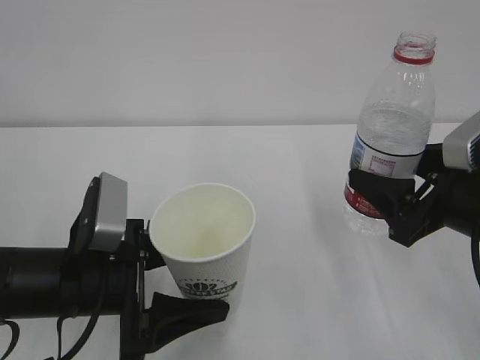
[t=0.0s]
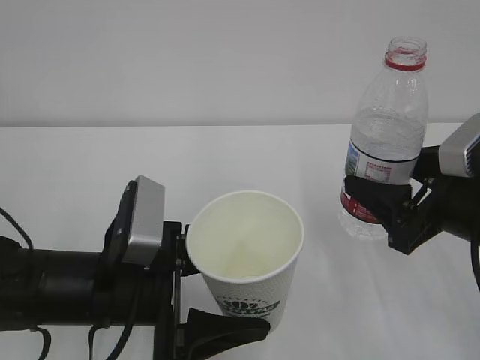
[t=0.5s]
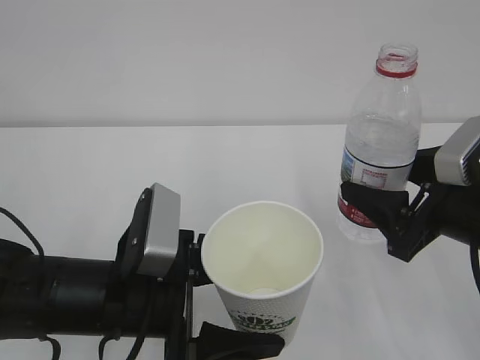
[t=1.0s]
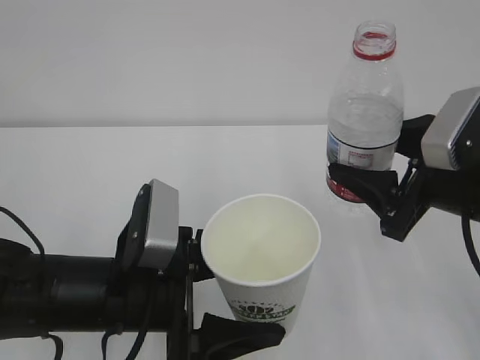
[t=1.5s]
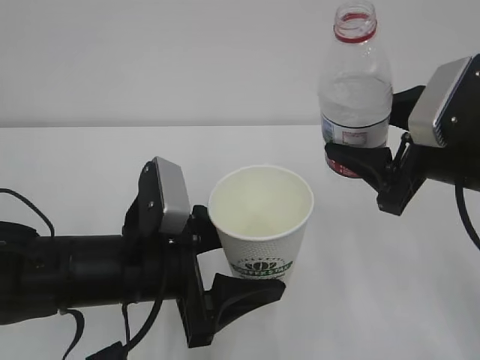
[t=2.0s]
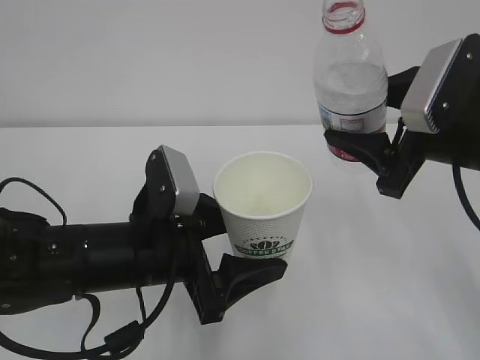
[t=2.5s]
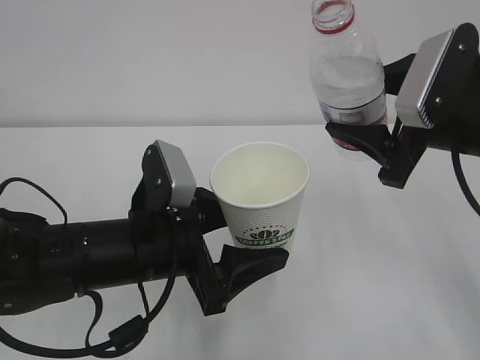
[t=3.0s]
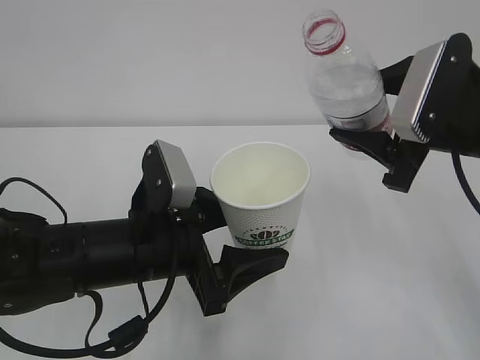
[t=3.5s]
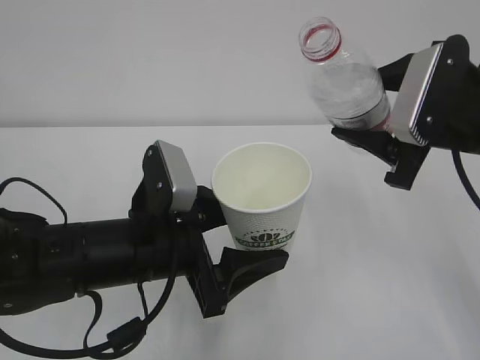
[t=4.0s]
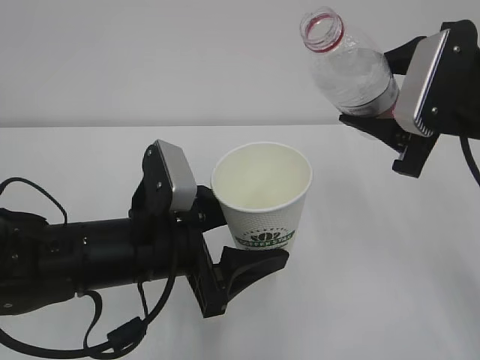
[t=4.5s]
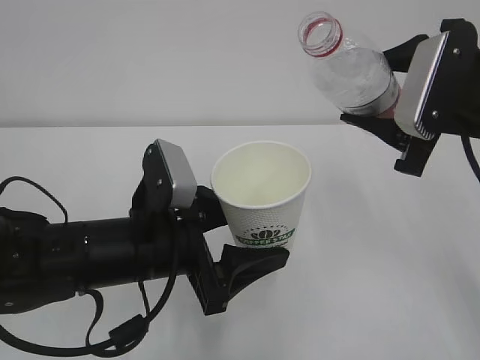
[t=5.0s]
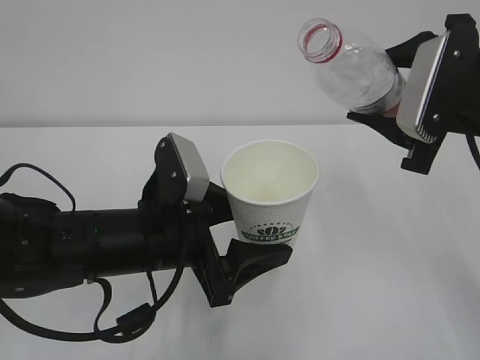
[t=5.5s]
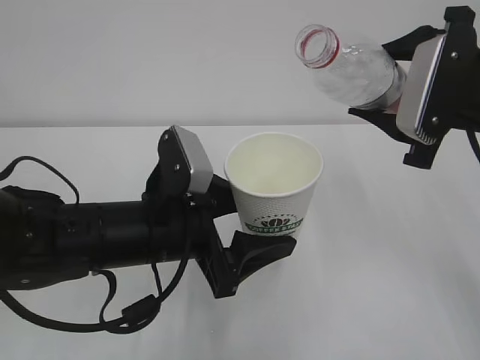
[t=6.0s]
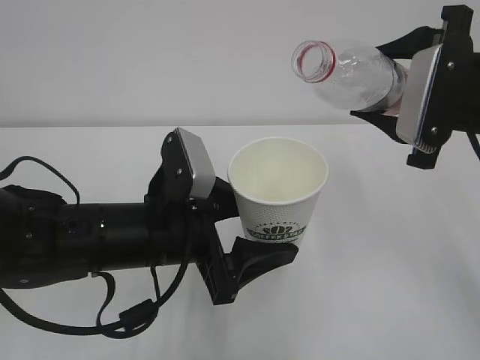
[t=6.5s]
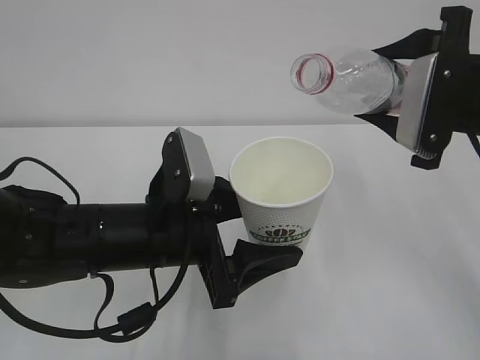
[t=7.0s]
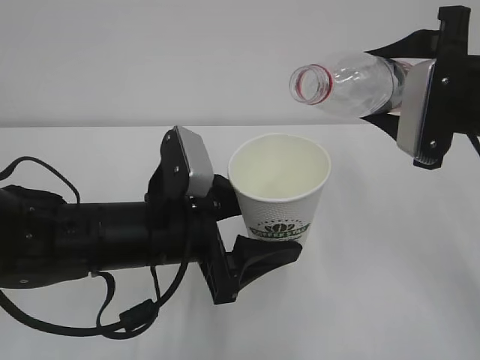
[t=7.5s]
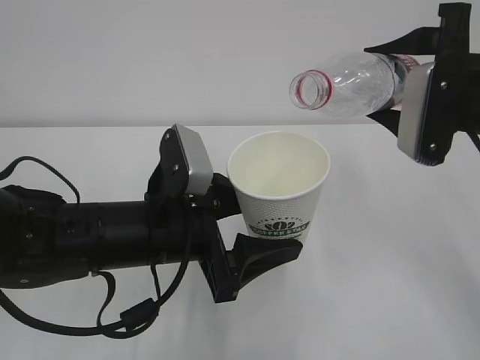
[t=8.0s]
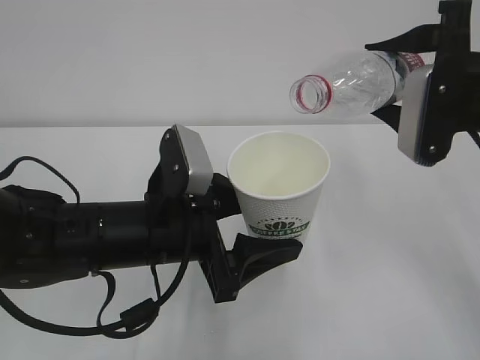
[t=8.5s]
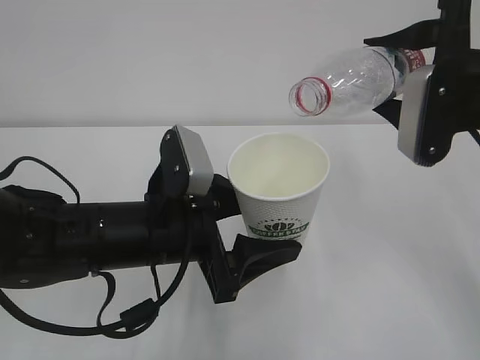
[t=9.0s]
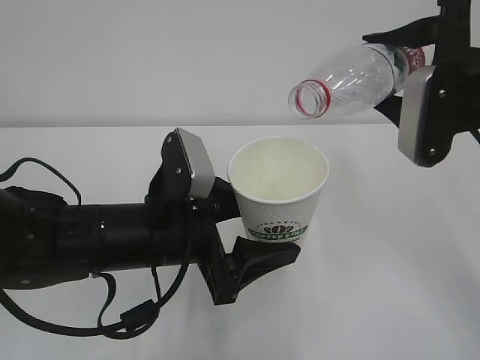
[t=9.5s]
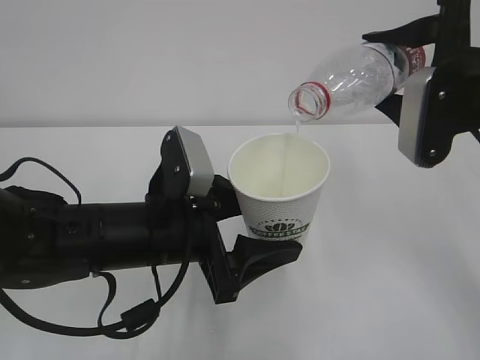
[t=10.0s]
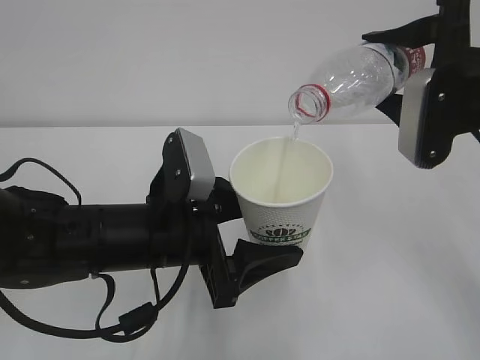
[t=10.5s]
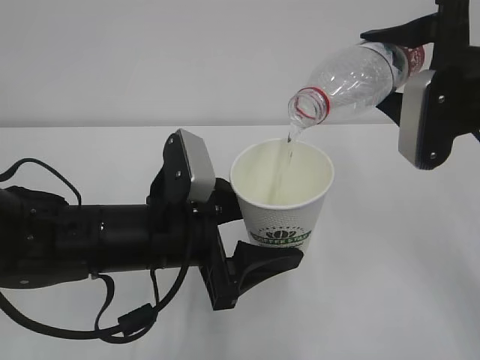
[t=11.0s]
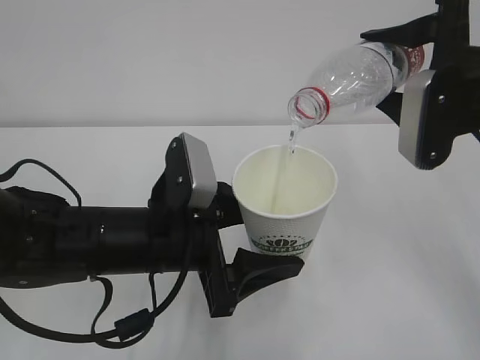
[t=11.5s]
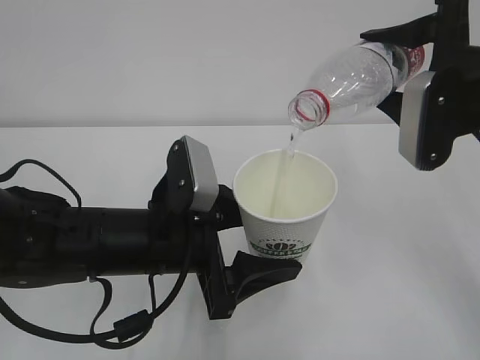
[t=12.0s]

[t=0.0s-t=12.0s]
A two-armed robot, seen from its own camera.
t=0.0s to t=2.0s: The left gripper moves to the right, approximately 5 cm.
t=6.0s to t=8.0s: The grippers stay close to where they were, moving slightly.
t=8.0s to t=10.0s: The grippers stay close to where they were, moving slightly.
t=10.0s to t=12.0s: Neither gripper changes place.

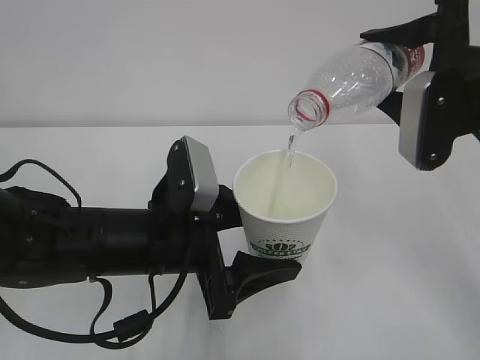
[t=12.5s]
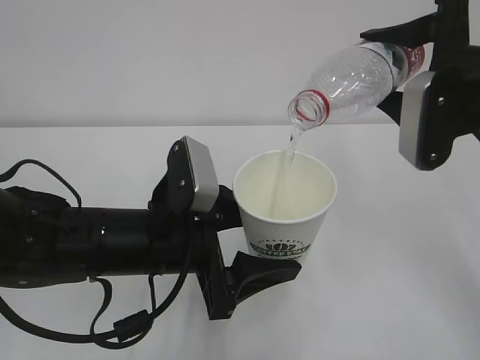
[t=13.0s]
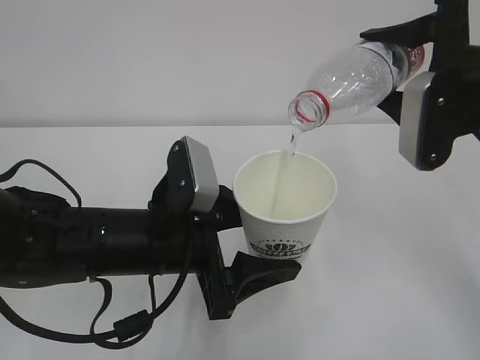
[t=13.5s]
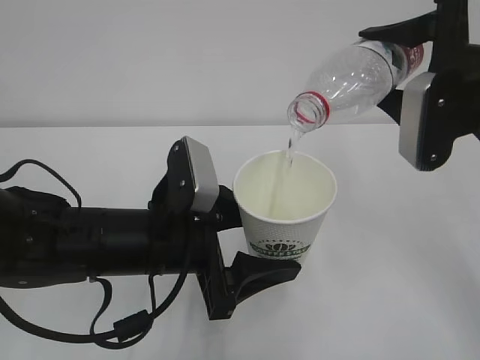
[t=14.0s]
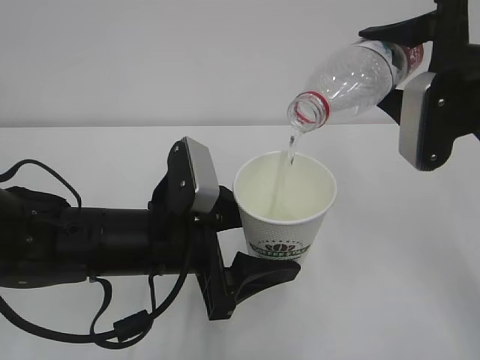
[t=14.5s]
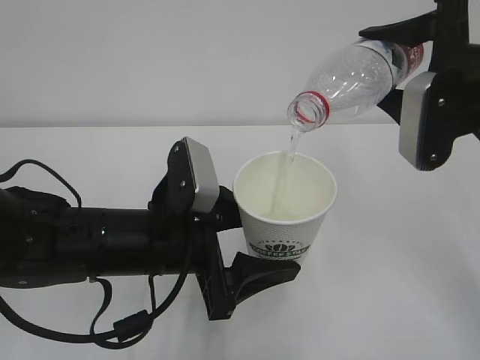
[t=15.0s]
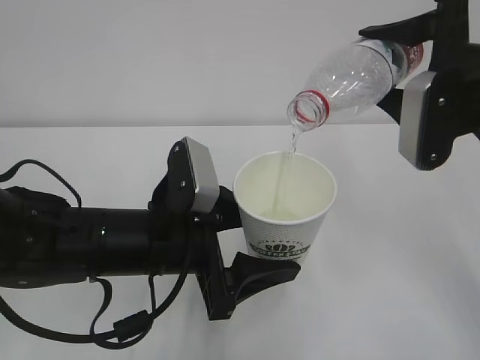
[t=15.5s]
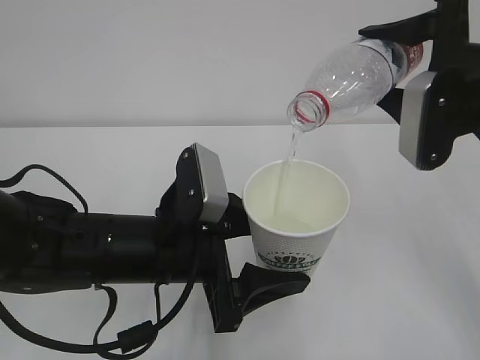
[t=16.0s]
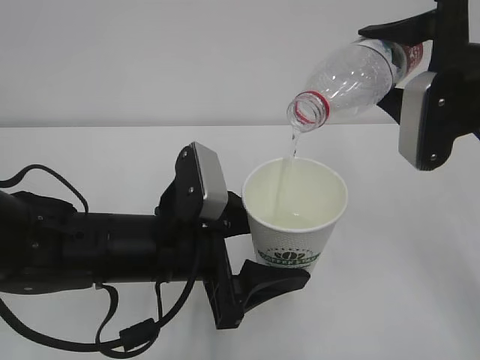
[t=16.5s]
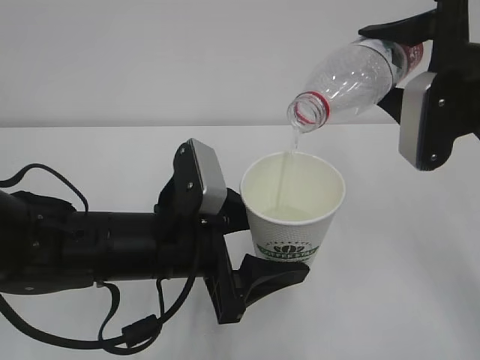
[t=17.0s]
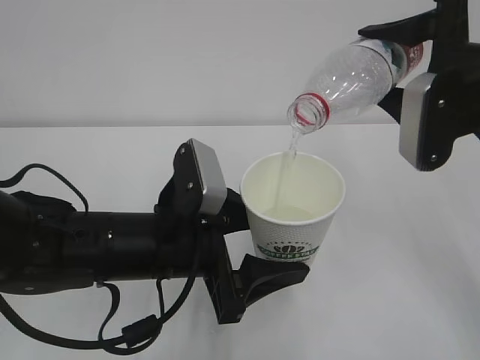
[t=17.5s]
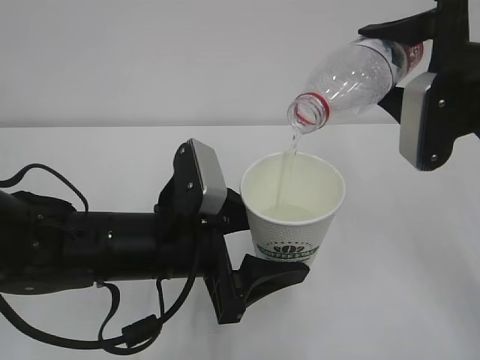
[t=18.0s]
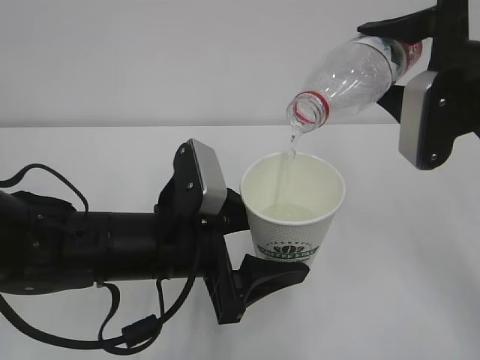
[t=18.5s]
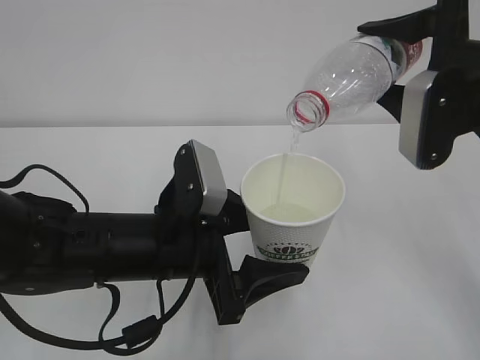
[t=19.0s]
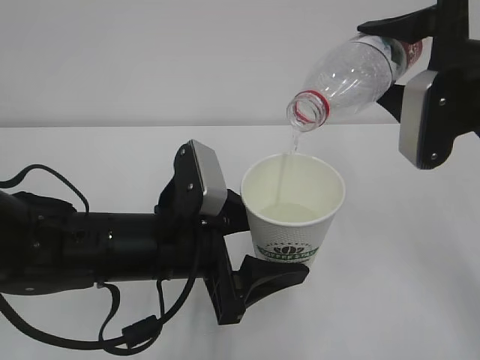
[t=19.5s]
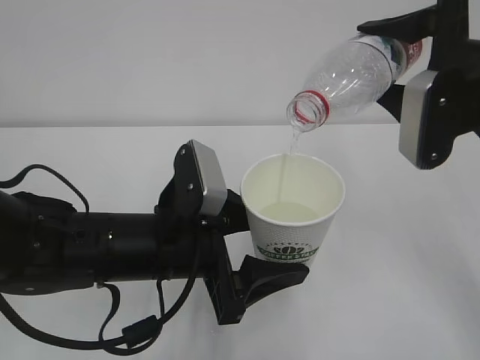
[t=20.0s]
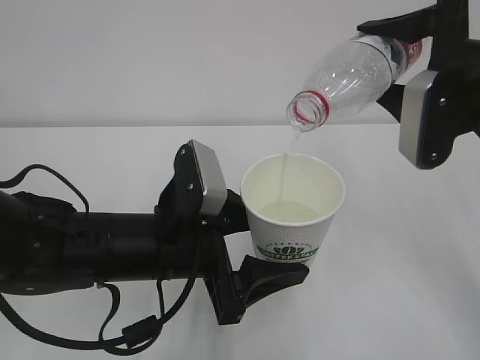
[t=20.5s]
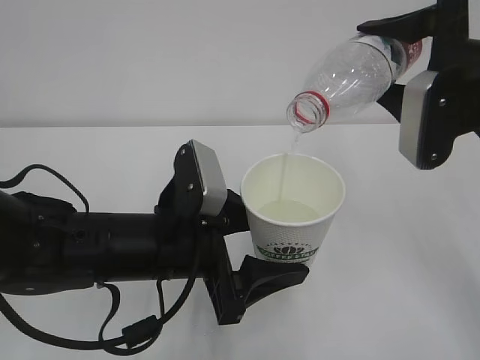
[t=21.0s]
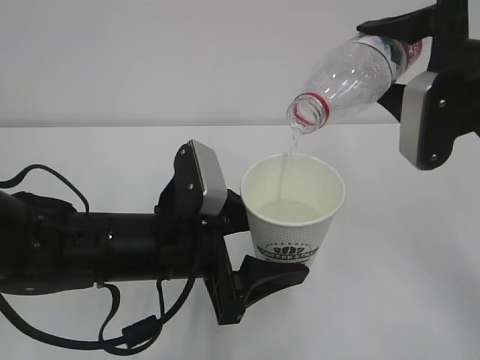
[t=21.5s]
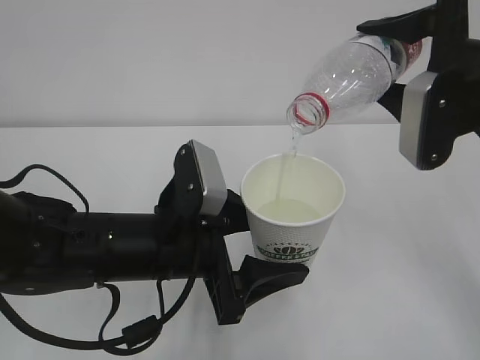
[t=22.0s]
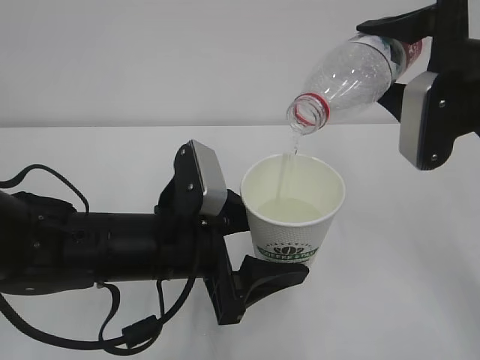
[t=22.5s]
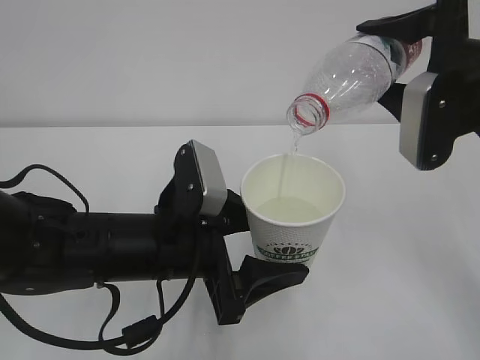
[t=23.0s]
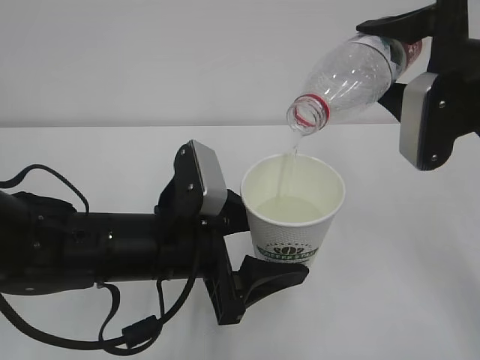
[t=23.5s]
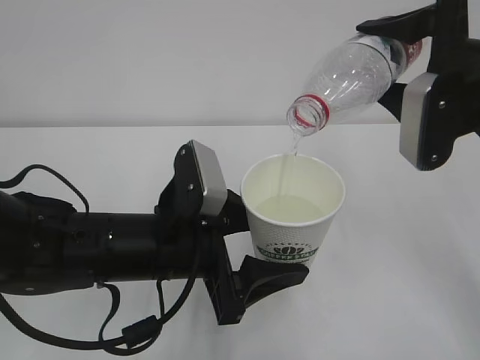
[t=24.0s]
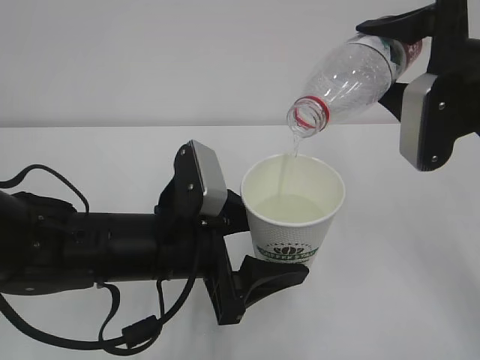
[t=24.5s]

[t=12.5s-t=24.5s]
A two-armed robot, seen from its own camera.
t=12.5s to t=22.5s: Both grippers stay about where they are.
t=22.5s to t=24.5s: Neither gripper changes place.

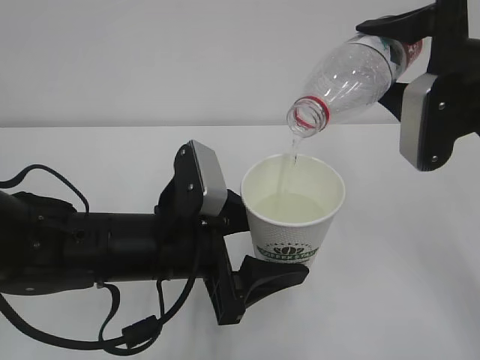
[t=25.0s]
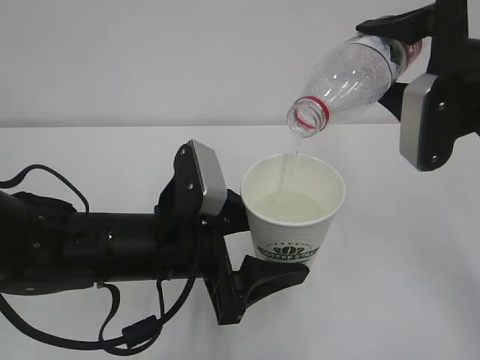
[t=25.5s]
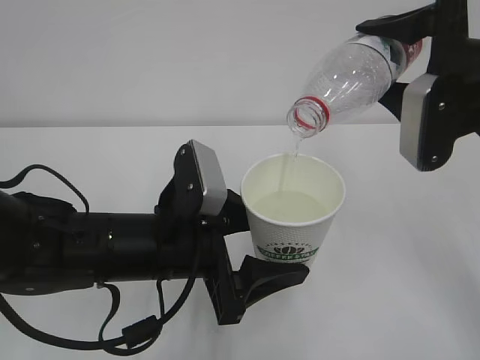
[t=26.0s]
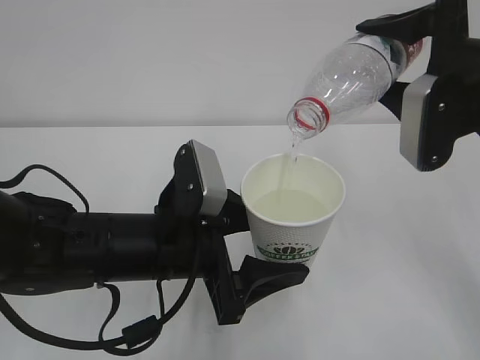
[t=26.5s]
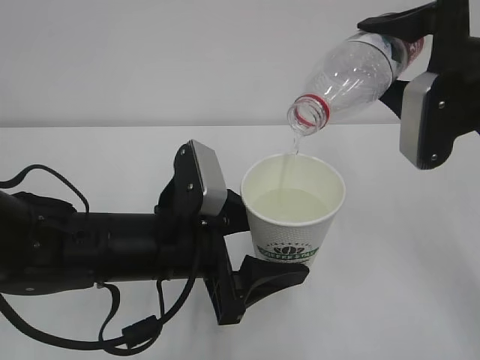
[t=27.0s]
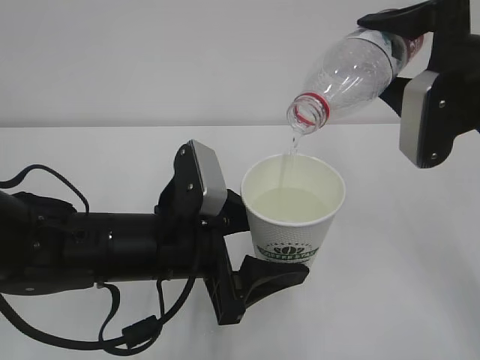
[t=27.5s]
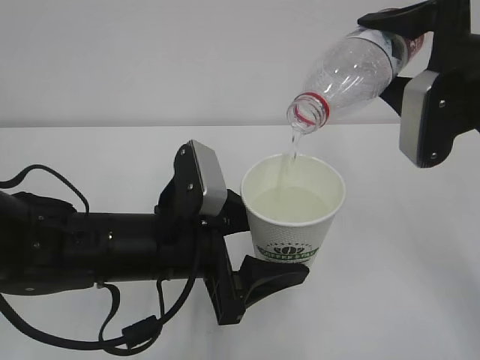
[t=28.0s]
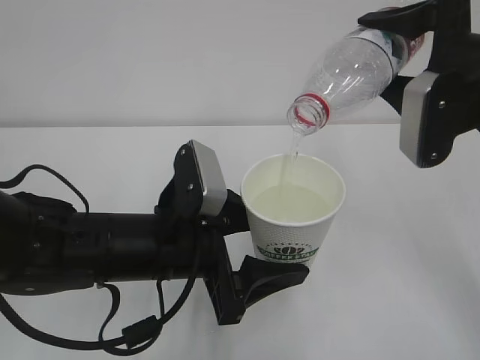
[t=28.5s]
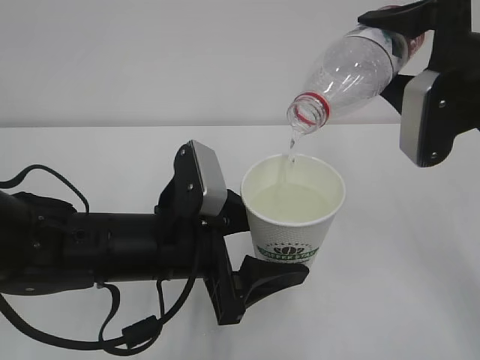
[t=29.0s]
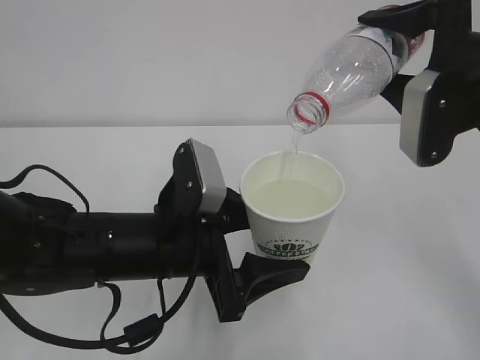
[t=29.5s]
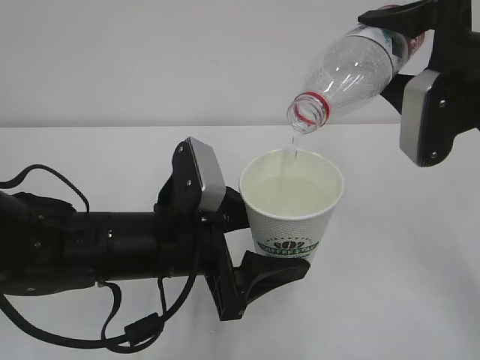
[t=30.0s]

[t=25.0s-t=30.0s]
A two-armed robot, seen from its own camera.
t=25.0s to t=30.0s: Both grippers stay about where they are.
